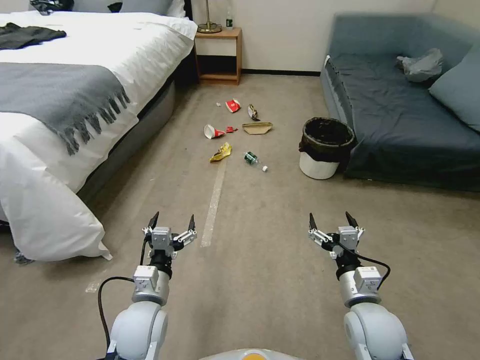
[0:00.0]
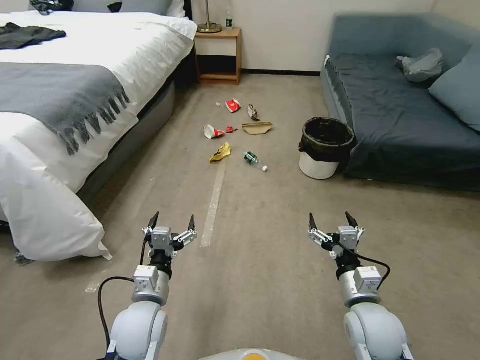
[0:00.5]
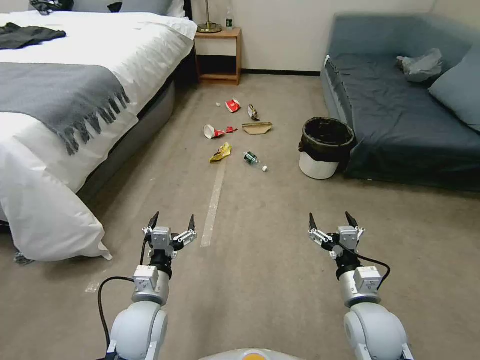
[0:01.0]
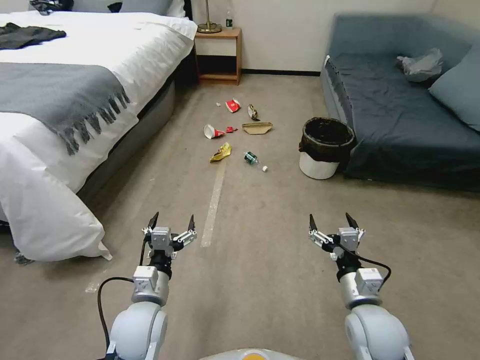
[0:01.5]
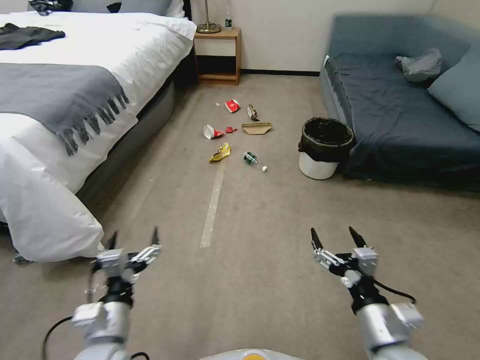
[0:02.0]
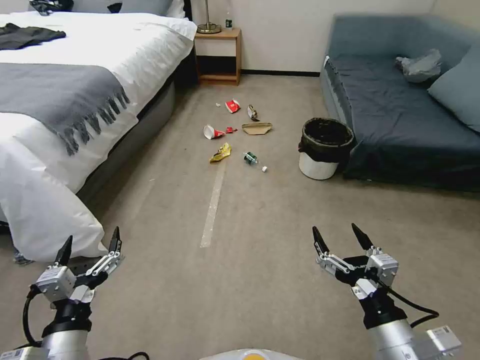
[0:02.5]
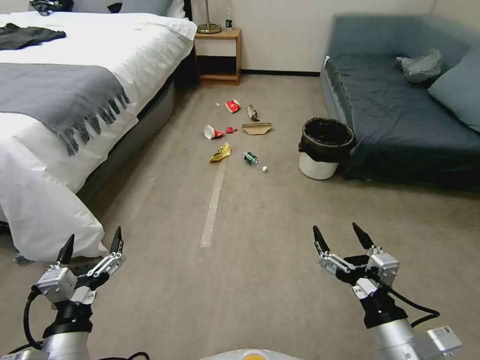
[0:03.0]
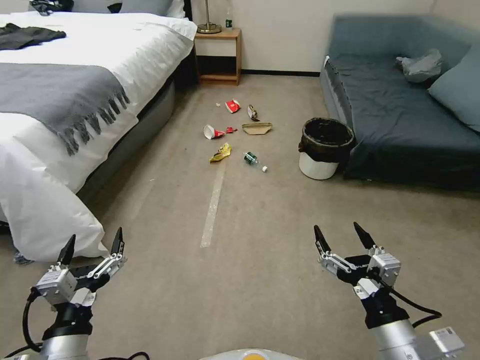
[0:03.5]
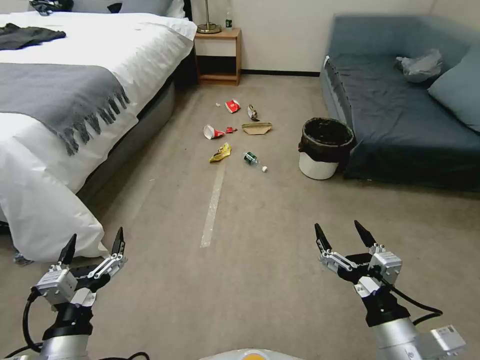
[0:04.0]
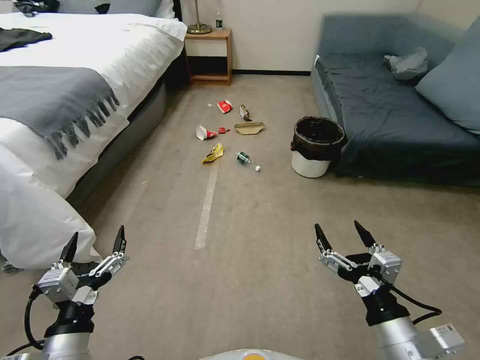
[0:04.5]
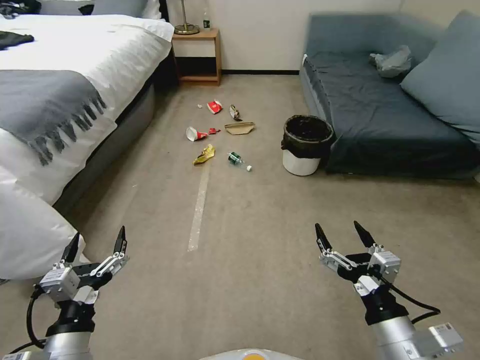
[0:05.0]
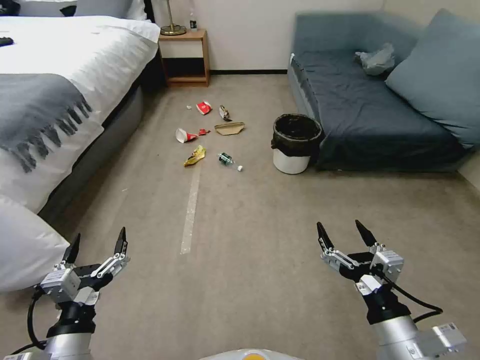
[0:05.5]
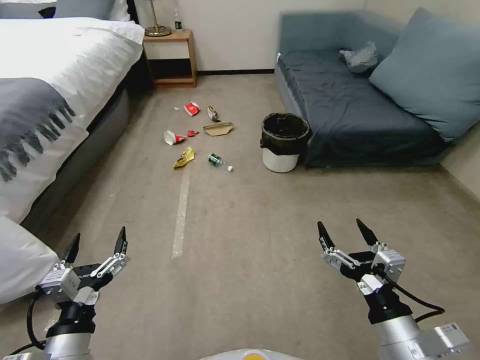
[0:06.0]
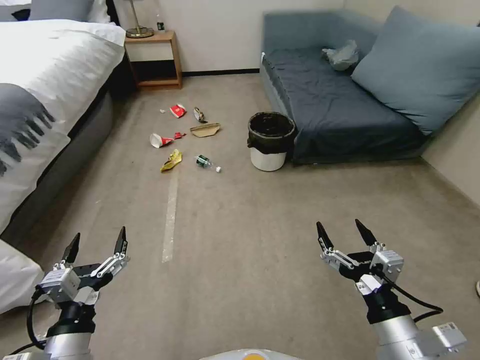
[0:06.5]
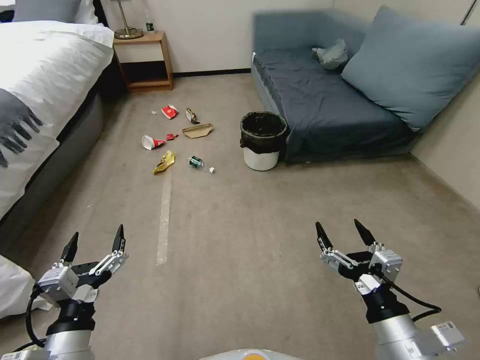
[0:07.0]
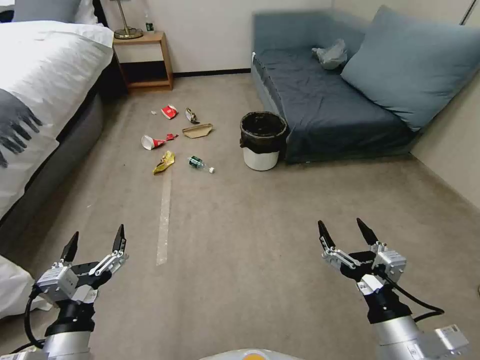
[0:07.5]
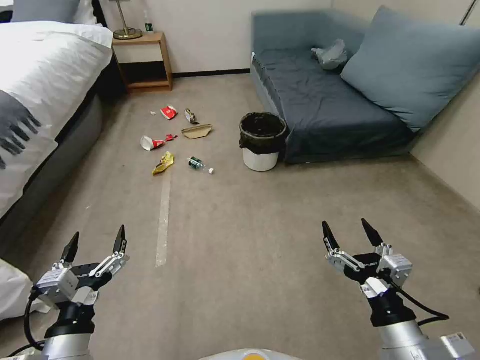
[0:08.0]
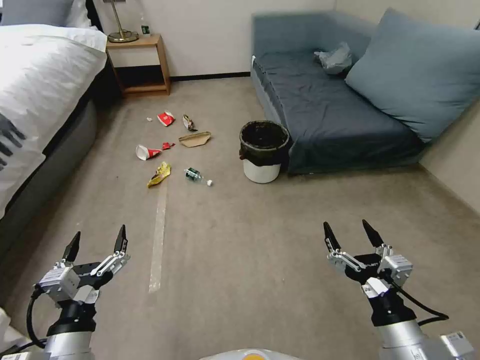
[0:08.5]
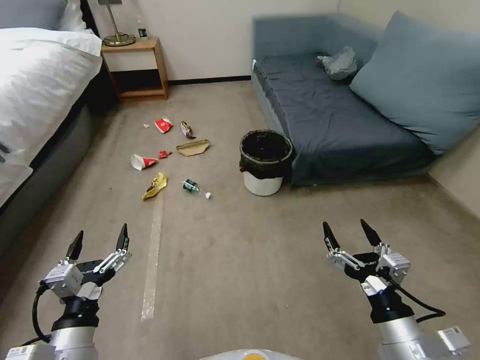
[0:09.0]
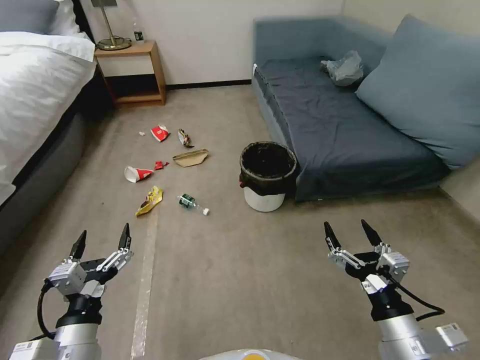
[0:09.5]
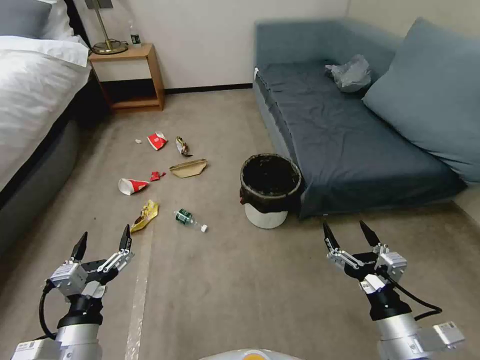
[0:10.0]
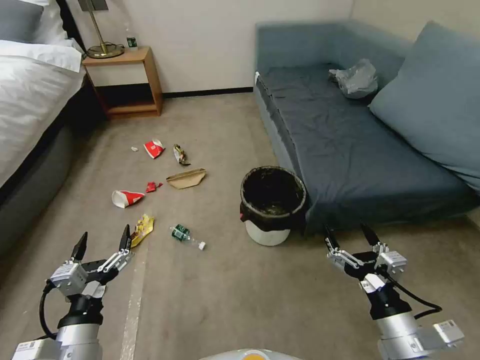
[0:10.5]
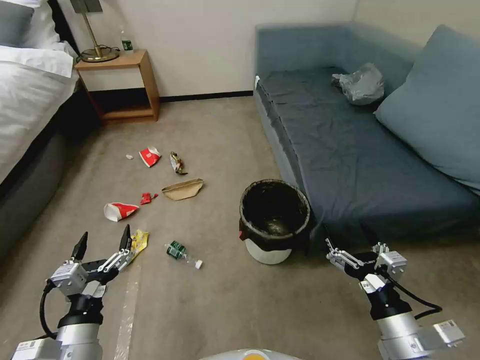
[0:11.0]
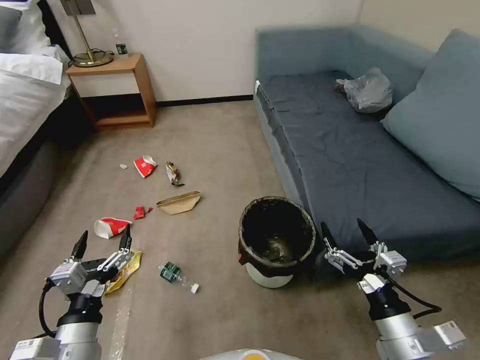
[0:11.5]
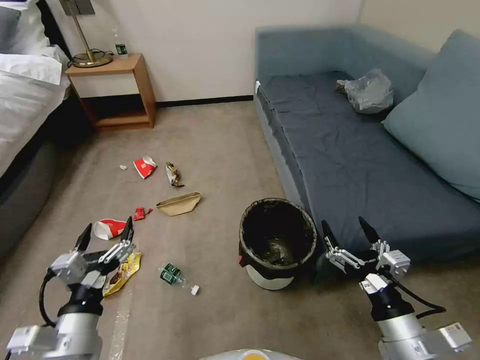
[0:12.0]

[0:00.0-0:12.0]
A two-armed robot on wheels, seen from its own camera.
Task of the whole recording: Pick up the trash can from the floor.
0:02.0 to 0:04.0: The right gripper changes place by approximately 5 cm, while the left gripper goes roughly 5 cm backward.

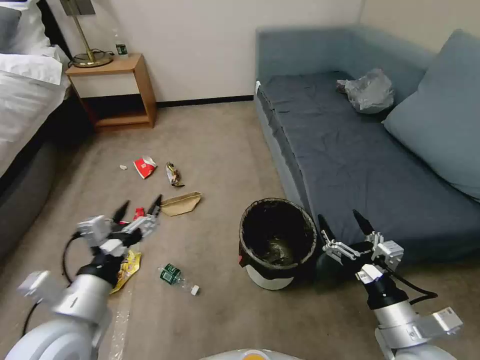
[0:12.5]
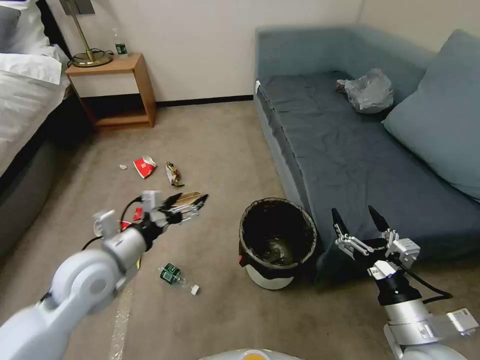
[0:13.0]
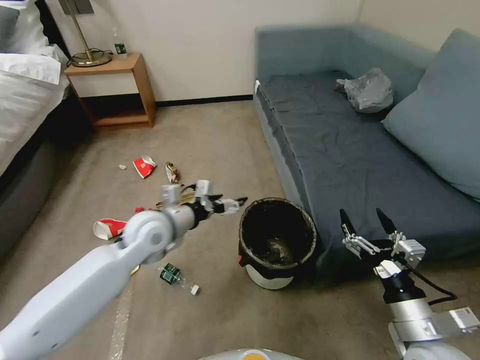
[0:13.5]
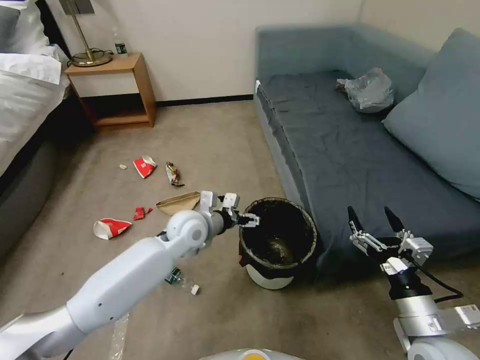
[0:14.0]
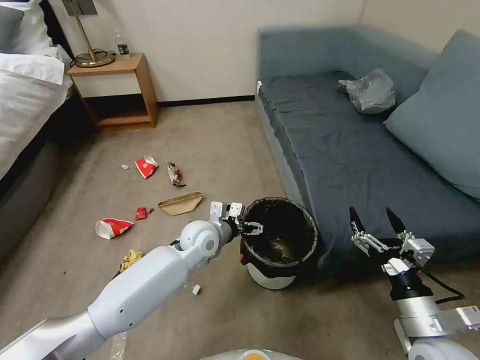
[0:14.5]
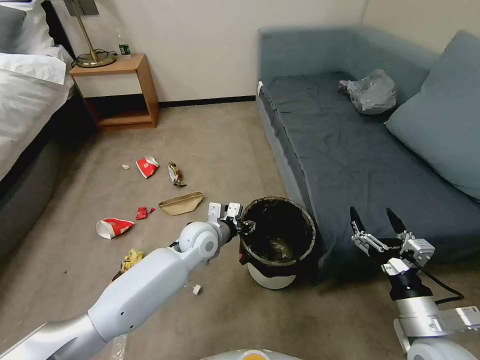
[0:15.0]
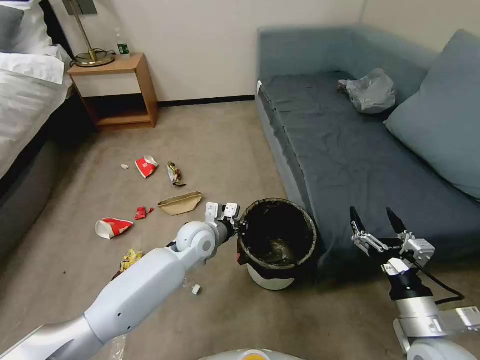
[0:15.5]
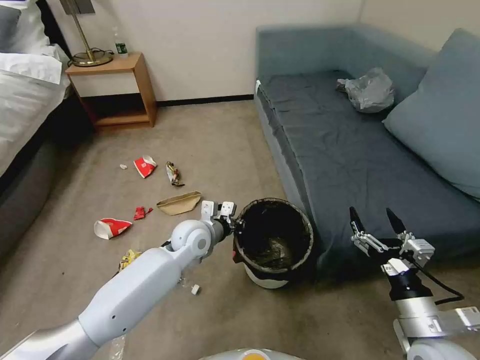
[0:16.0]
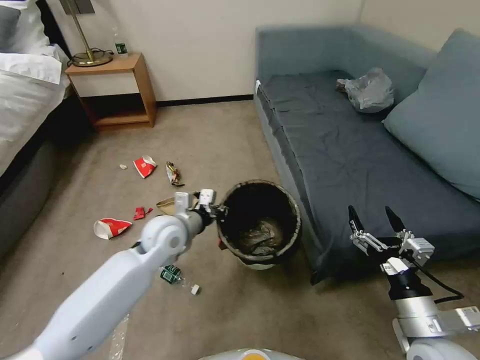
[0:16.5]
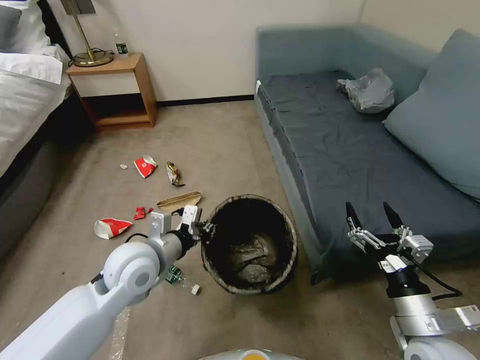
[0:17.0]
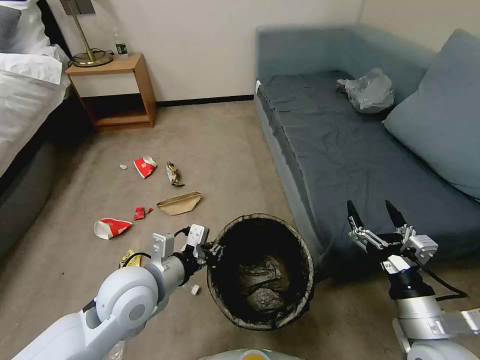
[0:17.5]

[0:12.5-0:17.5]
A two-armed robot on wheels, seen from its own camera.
Task of the whole recording: Pick up the trash can from the floor.
0:12.5 to 0:15.0: The left gripper travels forward, to the right and downward by some 30 cm, and closes up.
0:15.0 to 0:17.5: The left gripper shifts some 20 cm backward, upward and to the left, and closes.
